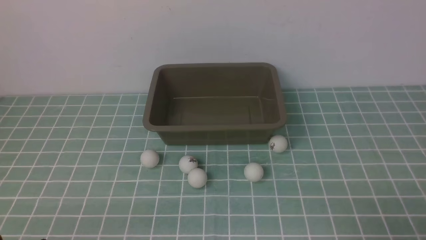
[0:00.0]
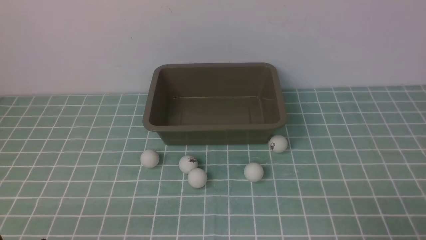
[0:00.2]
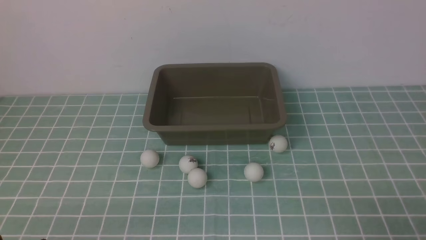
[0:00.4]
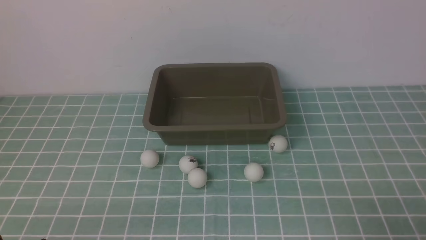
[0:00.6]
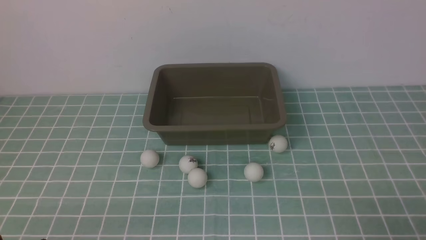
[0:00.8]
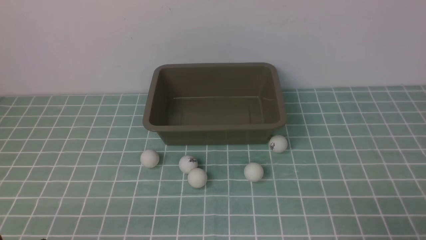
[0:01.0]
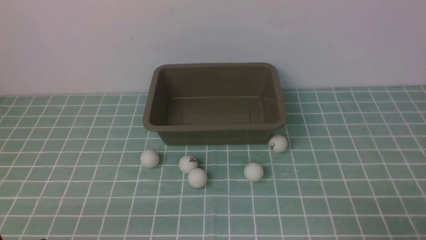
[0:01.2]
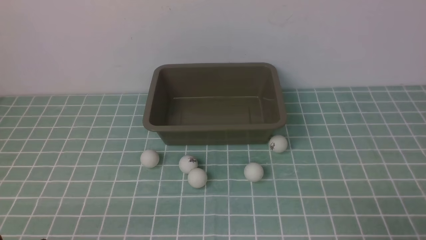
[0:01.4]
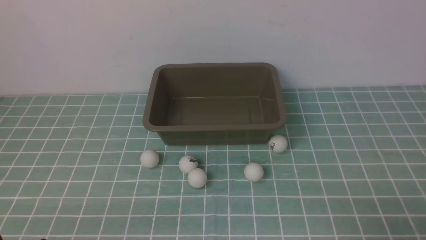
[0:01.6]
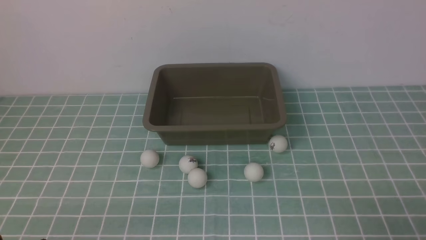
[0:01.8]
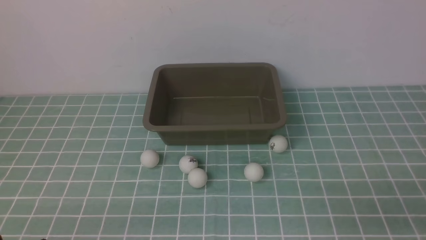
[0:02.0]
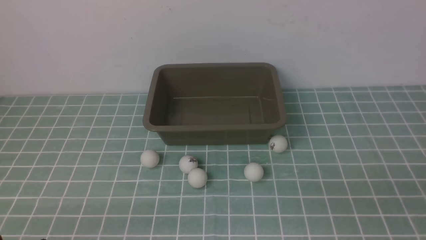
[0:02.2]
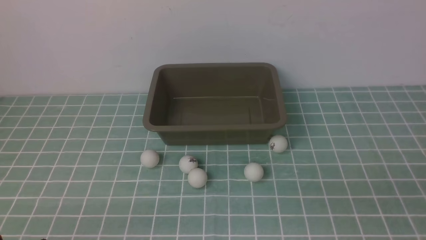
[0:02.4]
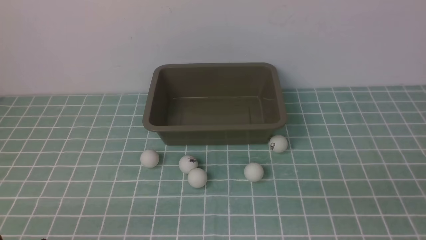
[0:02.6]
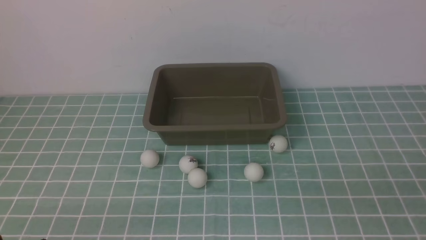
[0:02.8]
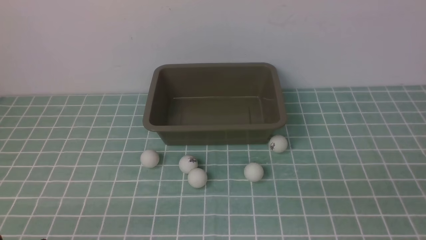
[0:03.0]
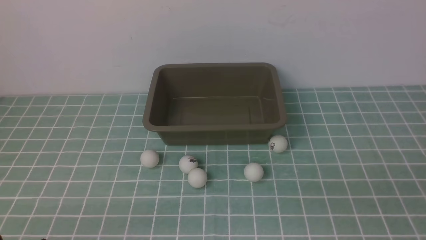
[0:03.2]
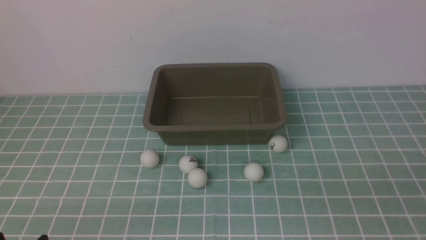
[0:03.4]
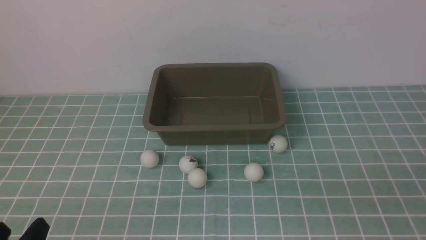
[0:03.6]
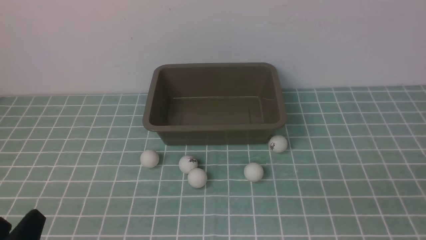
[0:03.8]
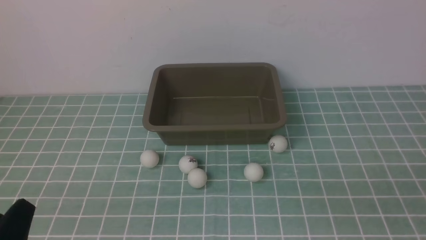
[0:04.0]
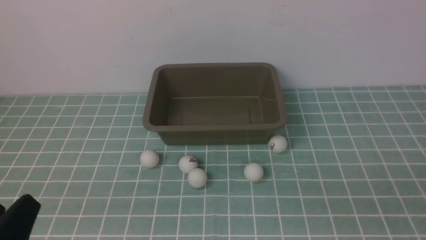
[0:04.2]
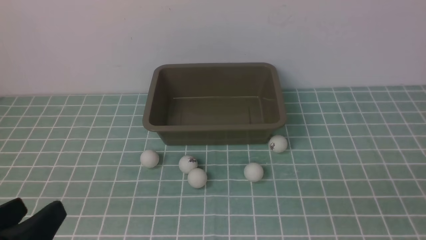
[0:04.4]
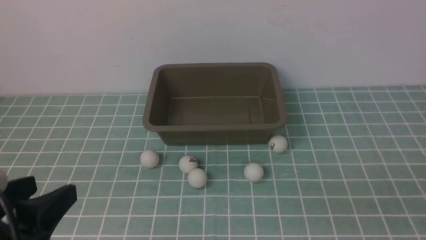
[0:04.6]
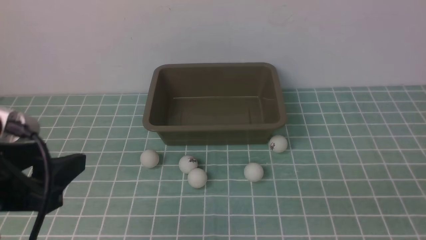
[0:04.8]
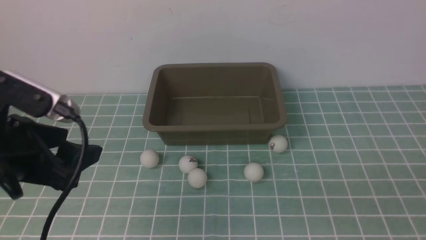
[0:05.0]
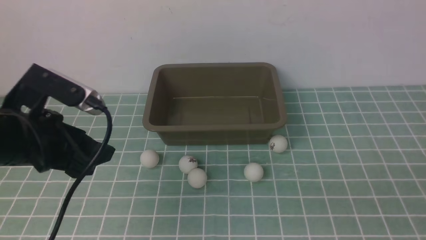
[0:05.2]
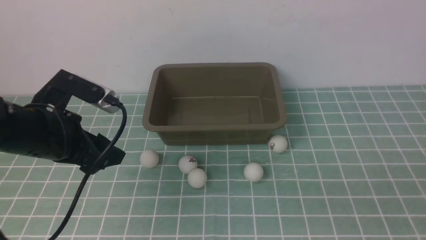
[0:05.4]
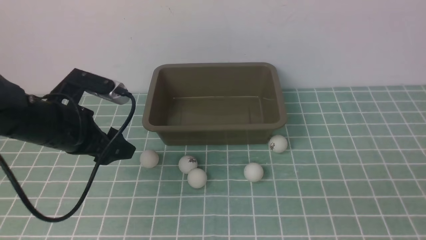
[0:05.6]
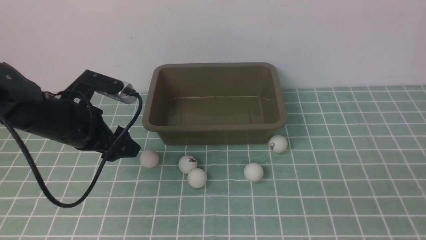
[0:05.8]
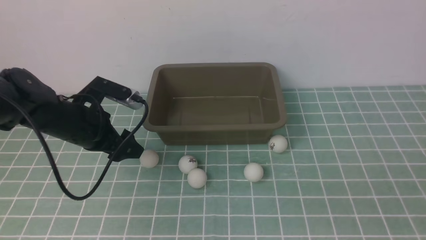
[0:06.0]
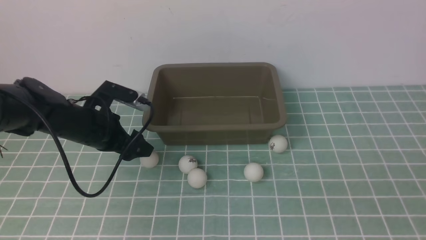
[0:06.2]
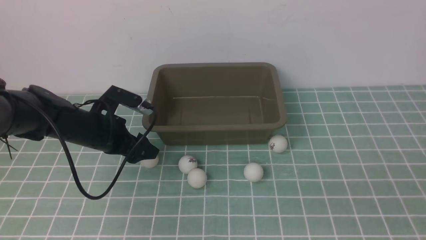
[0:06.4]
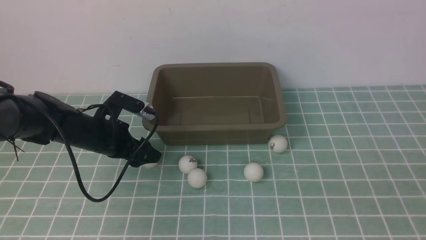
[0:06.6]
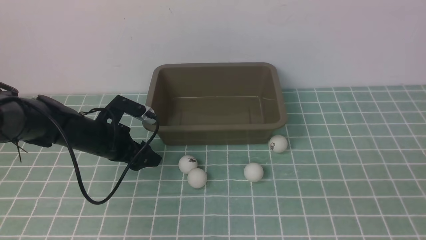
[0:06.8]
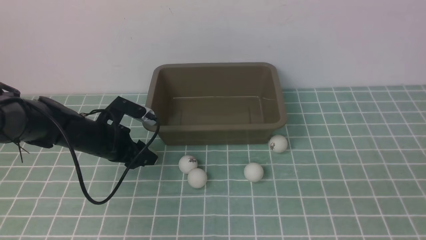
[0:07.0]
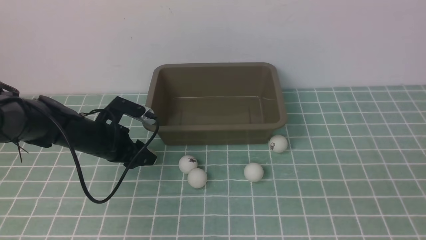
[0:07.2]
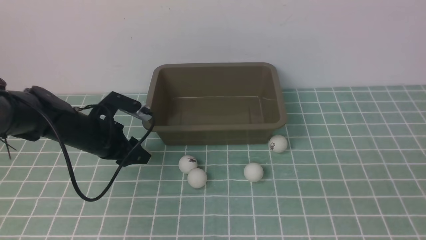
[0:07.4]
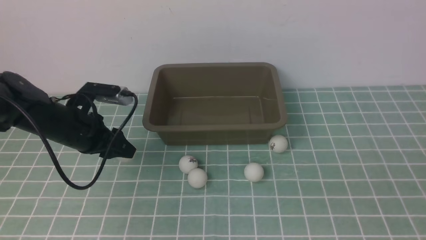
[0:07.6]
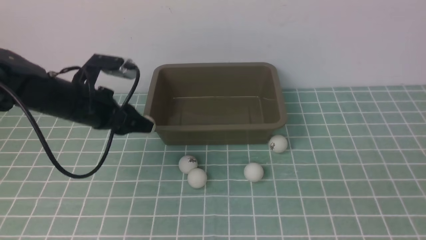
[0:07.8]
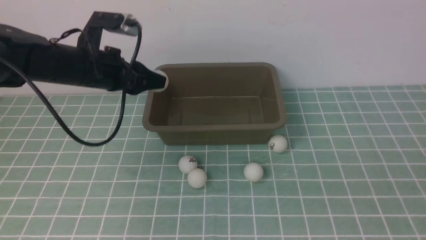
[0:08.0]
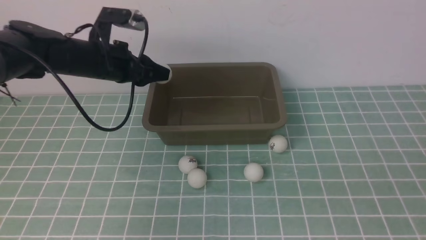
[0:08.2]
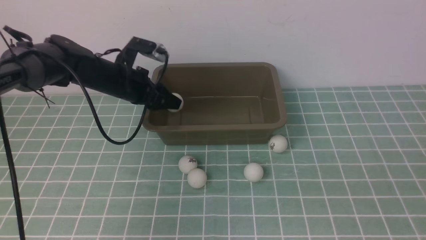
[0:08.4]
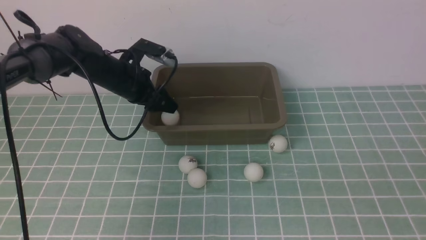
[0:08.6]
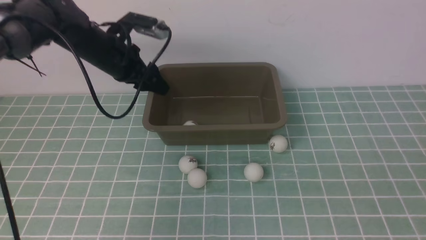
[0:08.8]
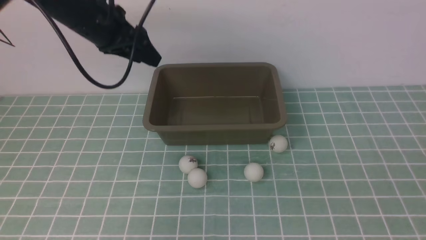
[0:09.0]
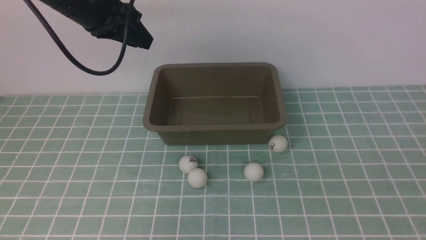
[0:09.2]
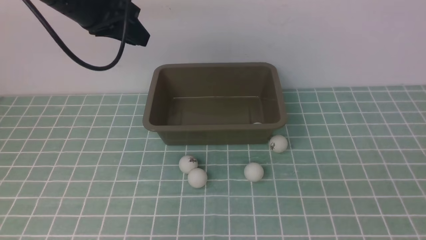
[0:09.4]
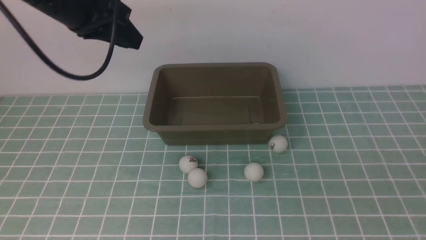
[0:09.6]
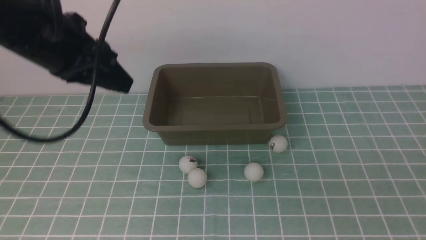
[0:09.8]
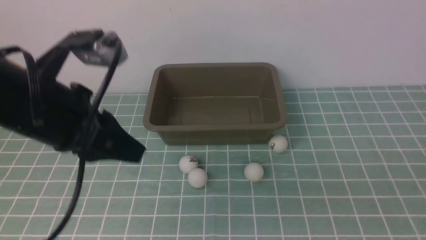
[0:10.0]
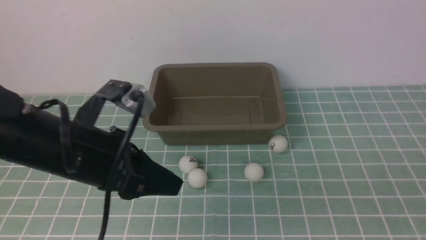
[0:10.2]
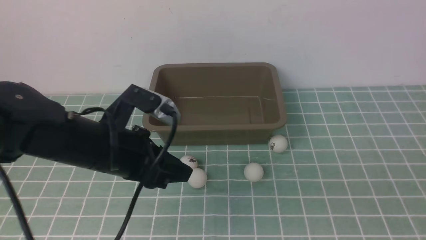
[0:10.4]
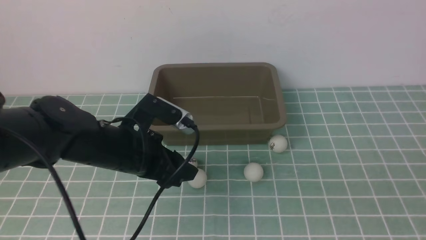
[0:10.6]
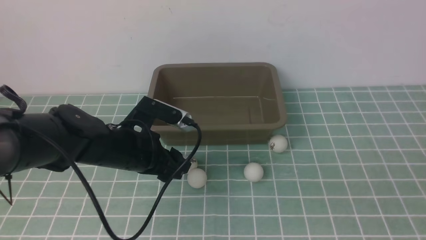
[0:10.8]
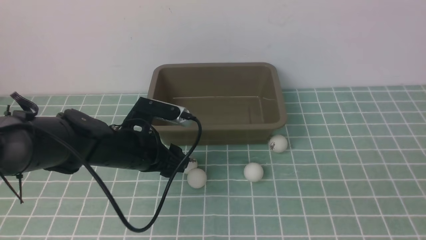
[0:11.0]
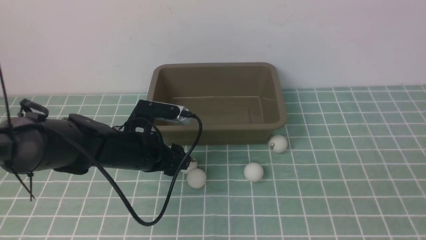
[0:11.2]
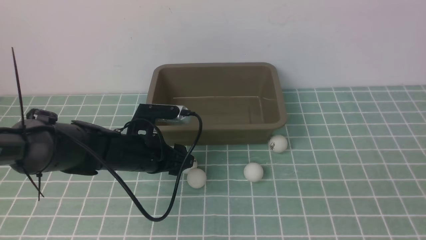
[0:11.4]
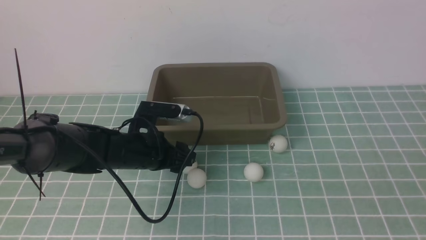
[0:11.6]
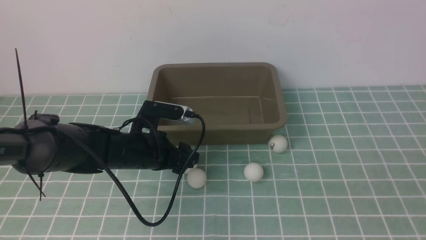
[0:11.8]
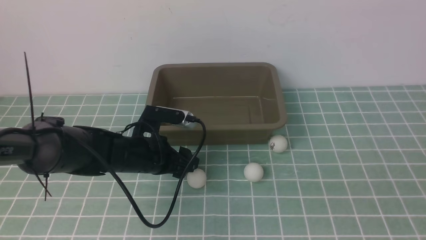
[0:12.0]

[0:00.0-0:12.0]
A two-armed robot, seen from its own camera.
Step, 0:00.0 to 0:07.4: use the left arm to clamp the table tennis ball closest to it.
Step, 0:07.6 to 0:08.8: use the left arm to put the table tennis ball into the box.
0:00.0 to 0:01.6: Both grippers stay put.
0:03.0 to 0:04.4: The left gripper shifts roughly 10 cm upward.
0:04.4 to 0:06.0: The left gripper travels forward by about 30 cm.
0:06.0 to 0:07.6: The left gripper reaches approximately 5 cm downward, then returns, and closes its fingers.
0:07.6 to 0:09.0: The left gripper moves up and down over about 10 cm, changing direction 2 times.
0:09.0 to 0:10.4: The left gripper goes roughly 20 cm backward and downward.
0:10.4 to 0:12.0: The left gripper is displaced downward and forward by about 15 cm, and opens up.

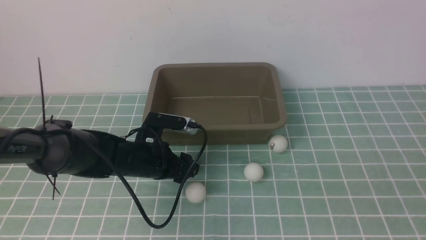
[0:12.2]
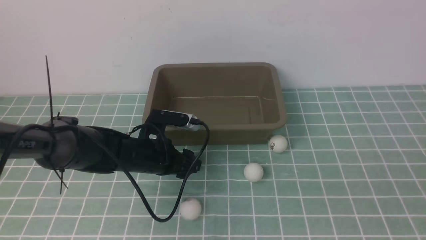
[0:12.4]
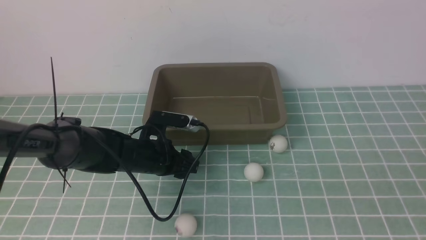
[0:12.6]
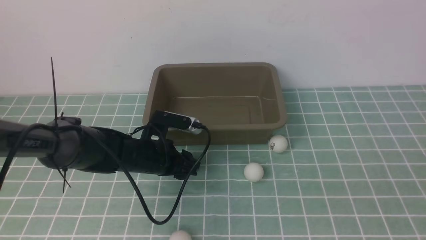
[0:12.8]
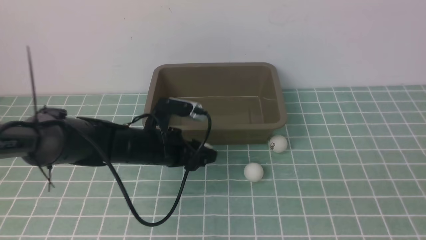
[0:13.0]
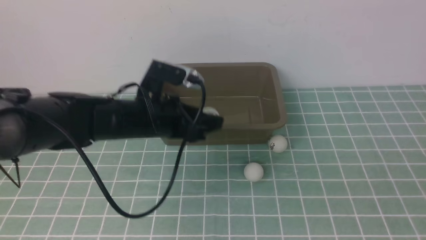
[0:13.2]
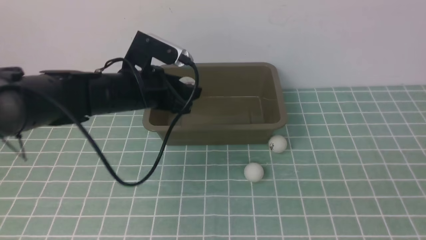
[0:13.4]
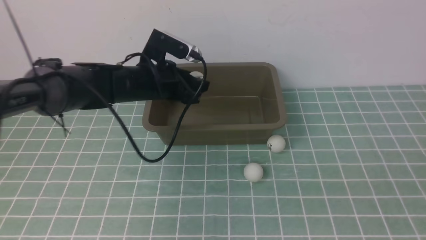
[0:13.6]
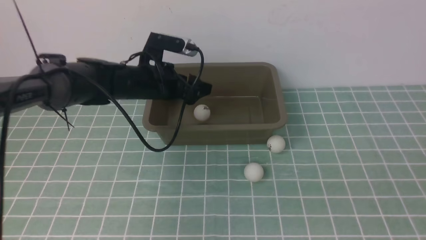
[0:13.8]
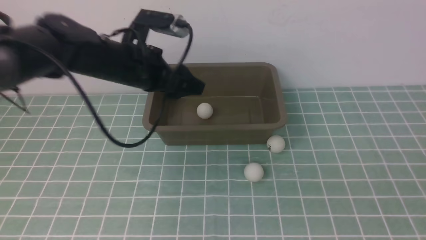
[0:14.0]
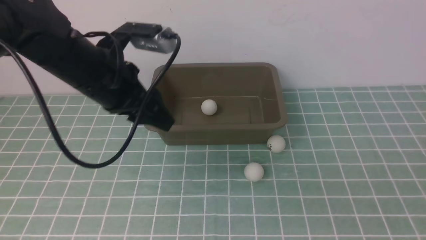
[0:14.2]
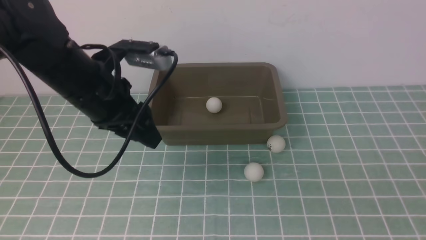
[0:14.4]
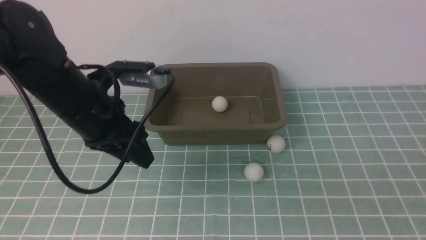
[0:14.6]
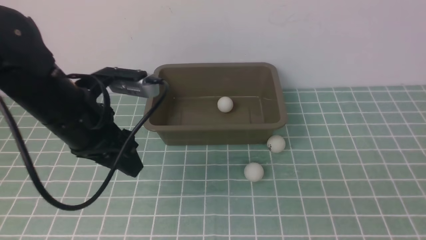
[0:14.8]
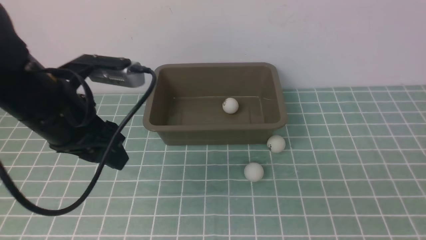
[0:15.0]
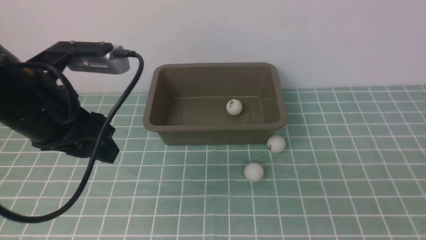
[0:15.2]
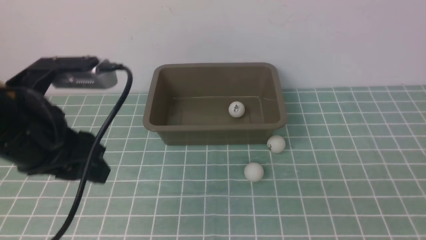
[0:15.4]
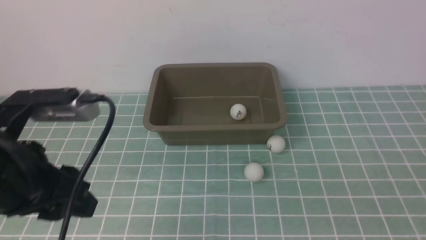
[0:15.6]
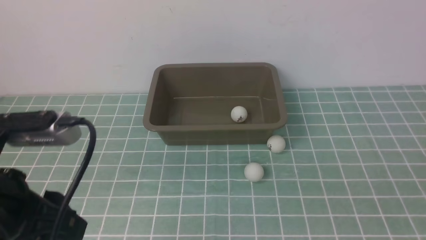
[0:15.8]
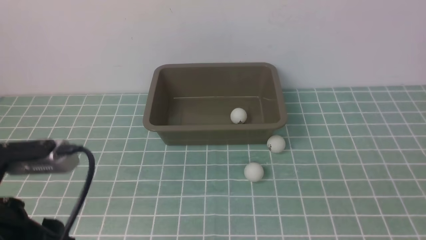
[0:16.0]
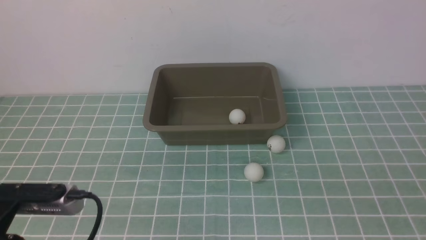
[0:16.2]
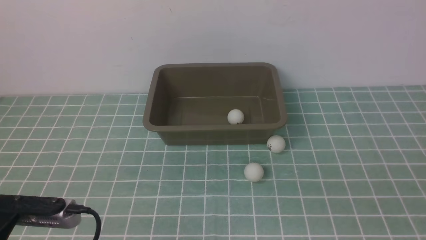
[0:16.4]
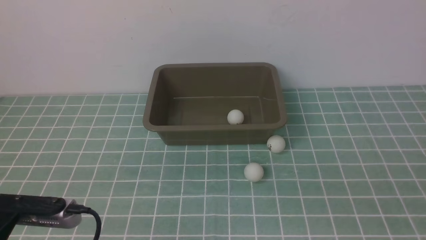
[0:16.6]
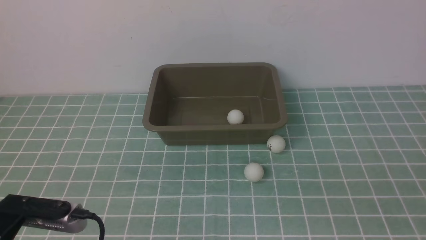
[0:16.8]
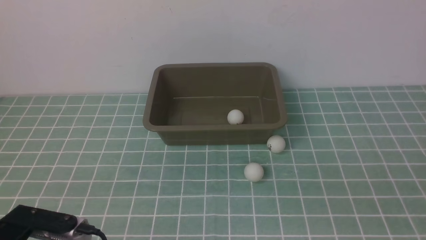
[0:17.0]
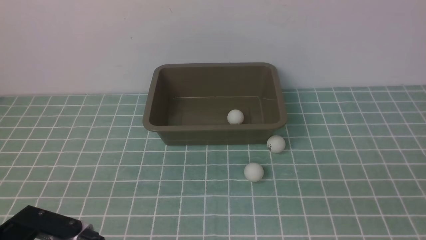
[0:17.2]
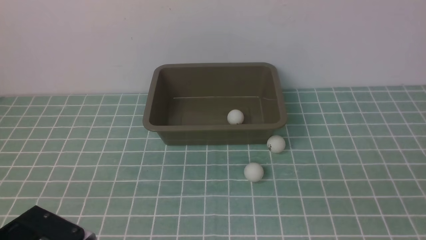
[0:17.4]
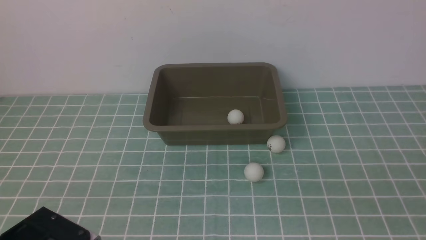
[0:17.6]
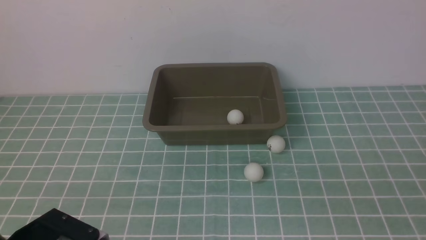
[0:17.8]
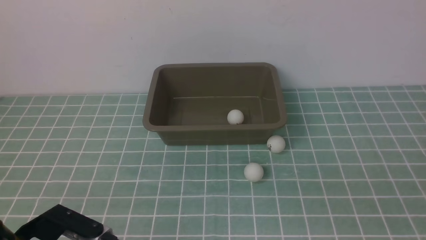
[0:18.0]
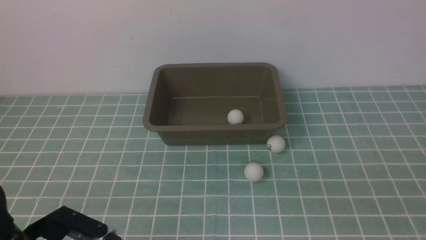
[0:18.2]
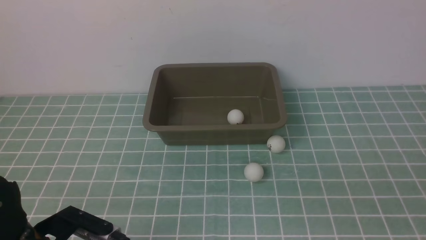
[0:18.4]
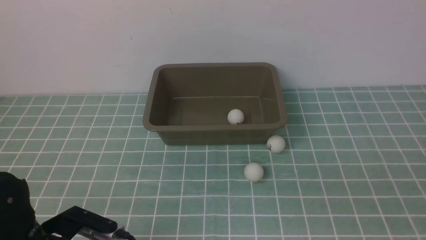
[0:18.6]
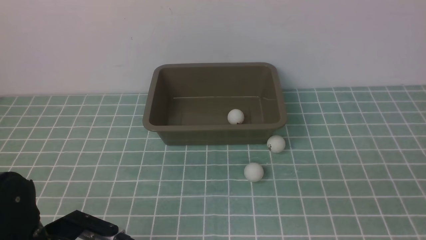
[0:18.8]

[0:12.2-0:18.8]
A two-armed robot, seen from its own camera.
Step, 0:13.4 to 0:14.0: use the left arm to put the table tennis ball into the box.
0:12.2 to 0:13.8: The left gripper shifts approximately 15 cm upward and forward.
0:13.8 to 0:15.4: The left gripper goes roughly 25 cm backward and upward, and closes its fingers.
0:15.4 to 0:17.2: The left gripper moves backward and downward, some 15 cm.
0:17.2 to 0:18.8: The left gripper travels downward and forward by some 10 cm.
